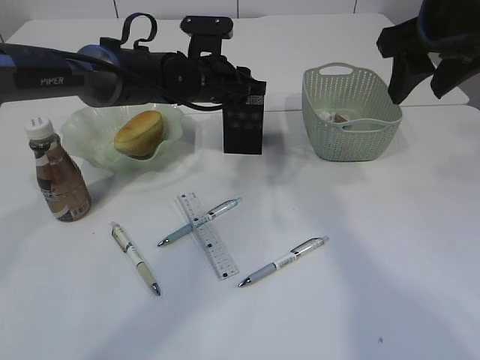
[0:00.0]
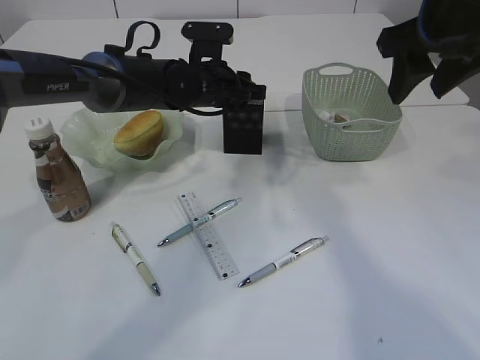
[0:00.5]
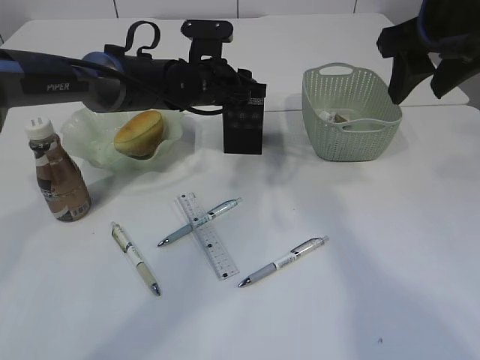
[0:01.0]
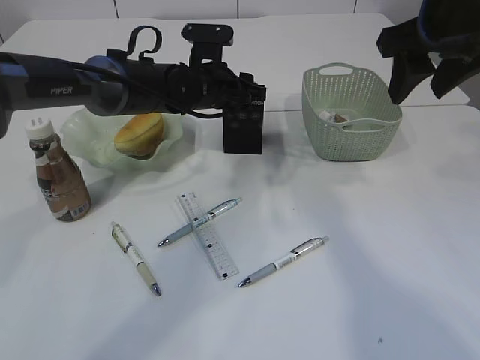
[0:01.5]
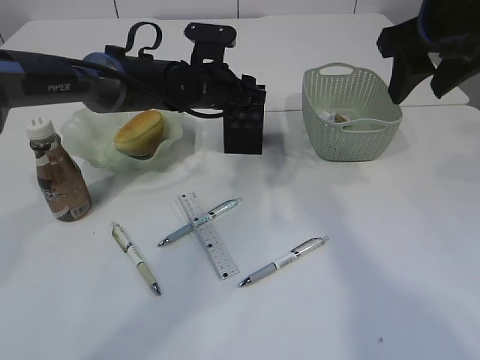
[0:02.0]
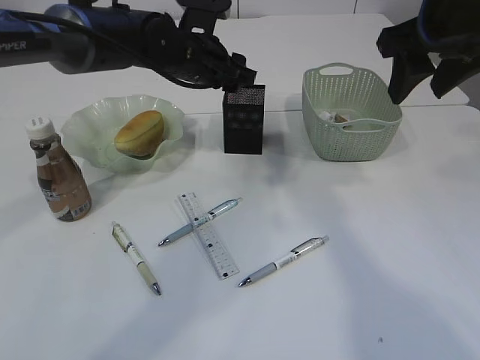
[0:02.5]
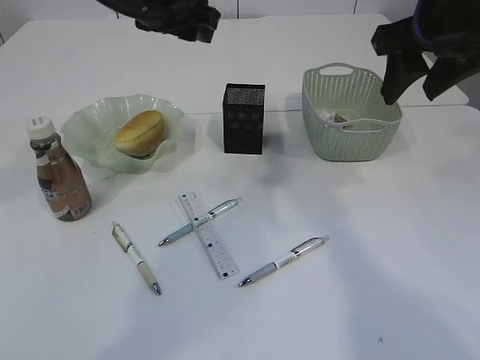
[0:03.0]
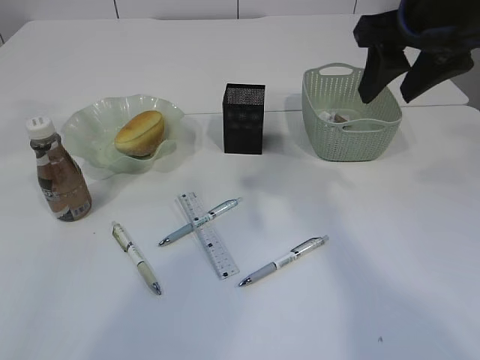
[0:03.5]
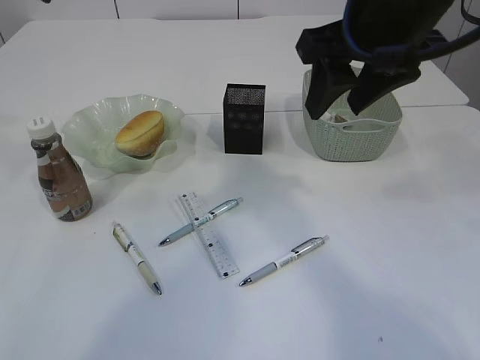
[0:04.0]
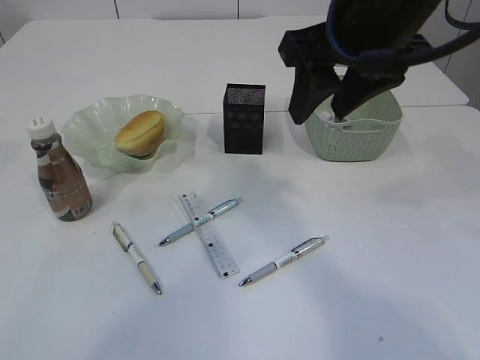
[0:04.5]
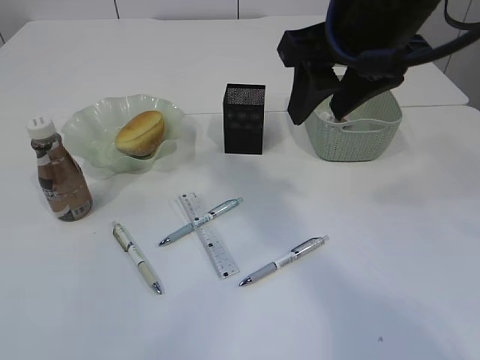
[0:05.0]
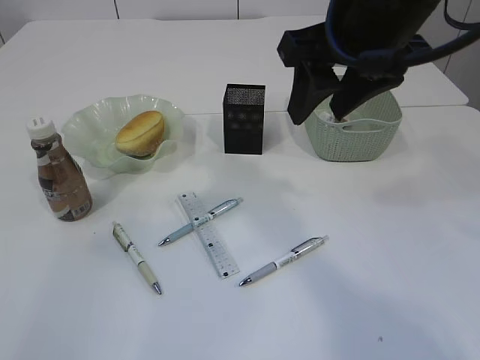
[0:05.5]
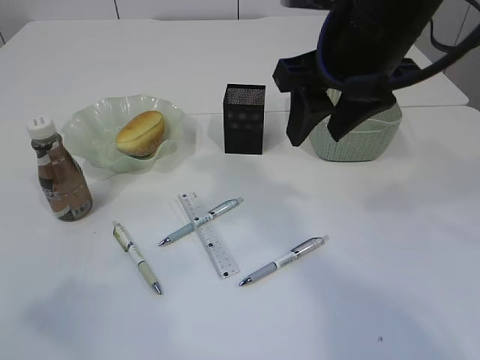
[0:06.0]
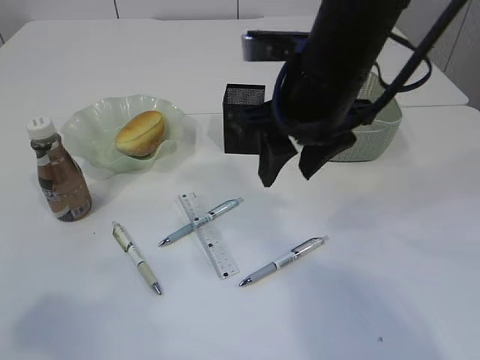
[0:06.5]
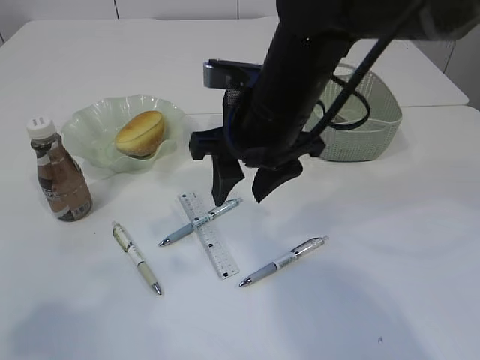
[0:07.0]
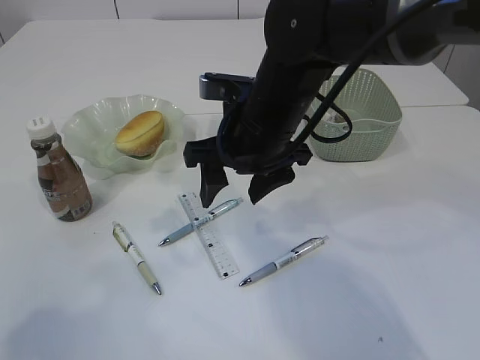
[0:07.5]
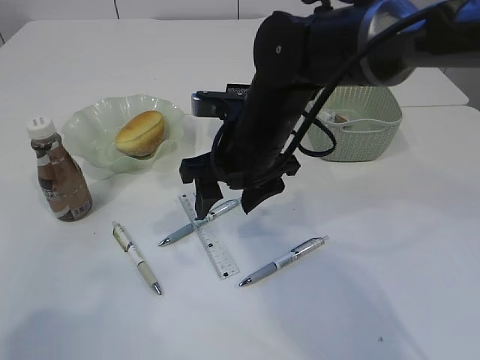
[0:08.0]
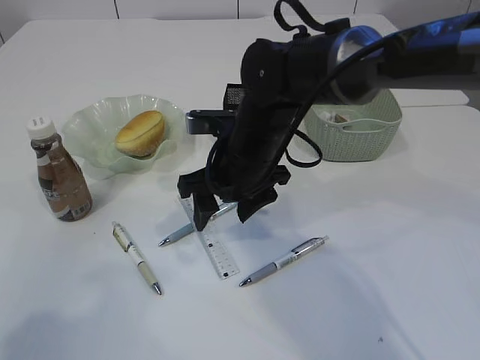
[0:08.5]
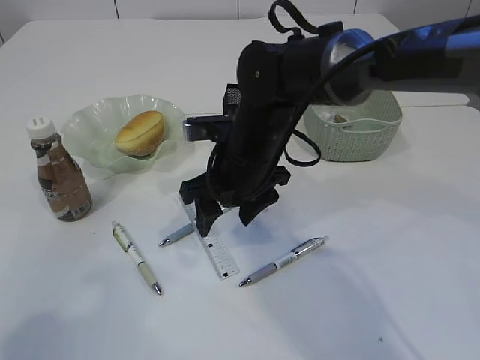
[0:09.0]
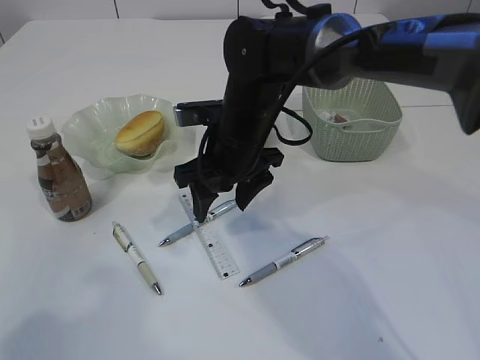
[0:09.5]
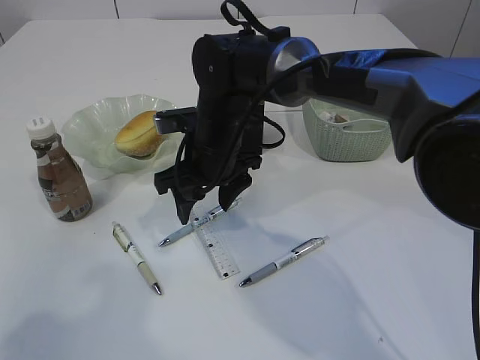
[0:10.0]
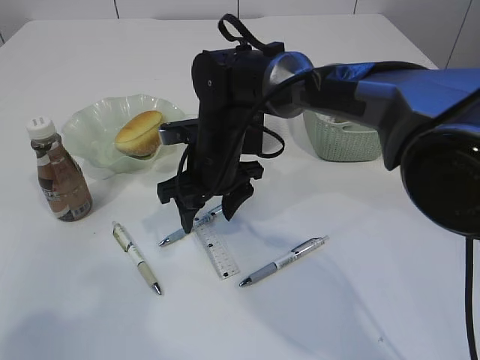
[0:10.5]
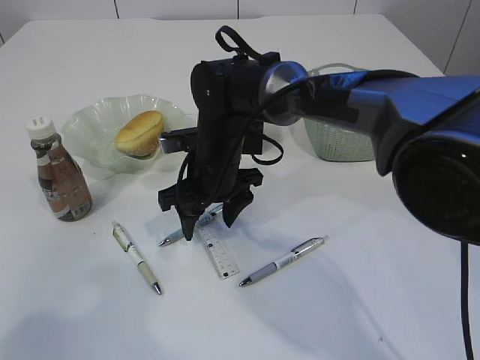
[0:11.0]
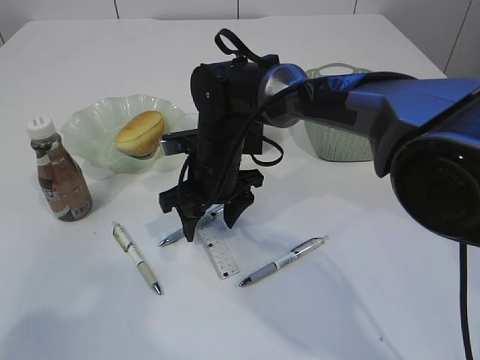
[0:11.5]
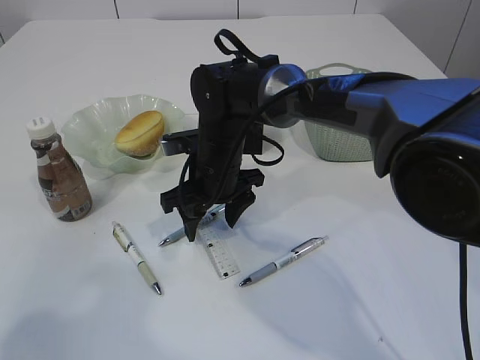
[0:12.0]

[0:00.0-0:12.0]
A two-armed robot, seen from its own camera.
Step, 0.0 to 2.5 s: Place the red pencil sharpener into the pen holder.
0.0 to 2.0 s: The two grippers keep their place.
2.0 to 4.0 s: The right gripper heads to the left, covering about 10 cm; the left gripper moves upward, to the left and backward, some 35 cm.
4.0 to 6.0 s: The left gripper moves backward, approximately 25 cm.
6.0 to 8.0 s: The left gripper opens its fingers; the right gripper is displaced downward and to the left by about 15 cm.
8.0 to 10.0 s: The right gripper moves some 5 cm.
10.0 to 12.0 s: The grippers move only a little.

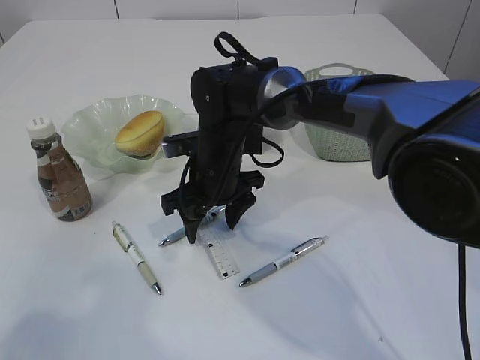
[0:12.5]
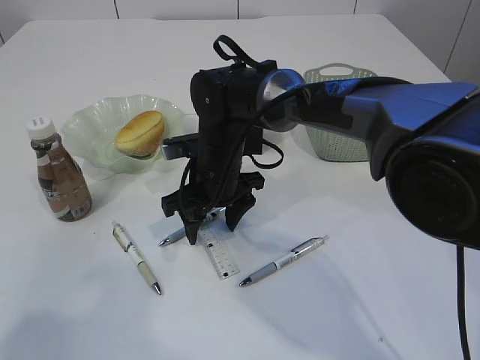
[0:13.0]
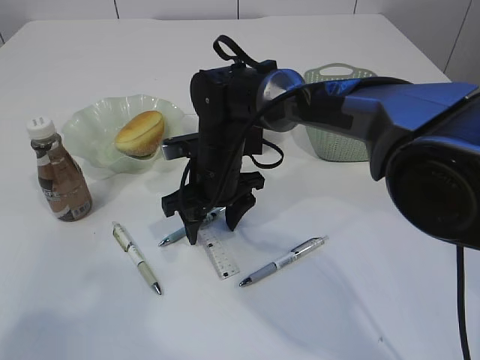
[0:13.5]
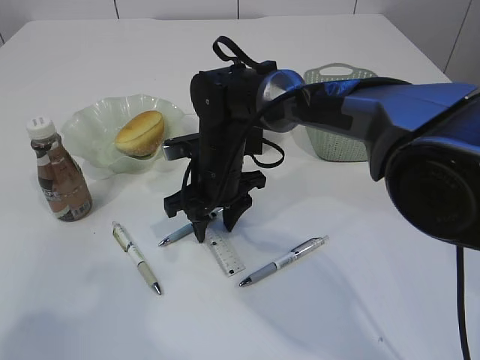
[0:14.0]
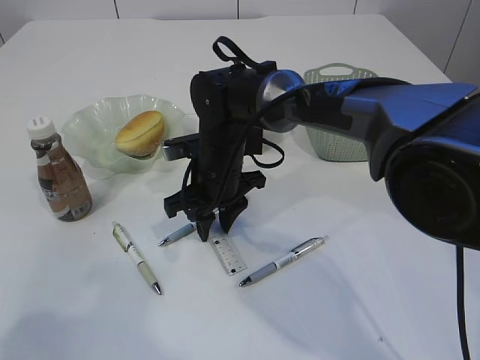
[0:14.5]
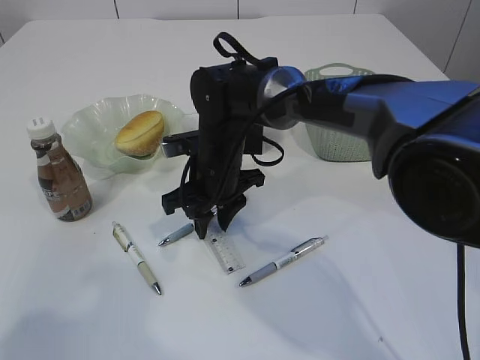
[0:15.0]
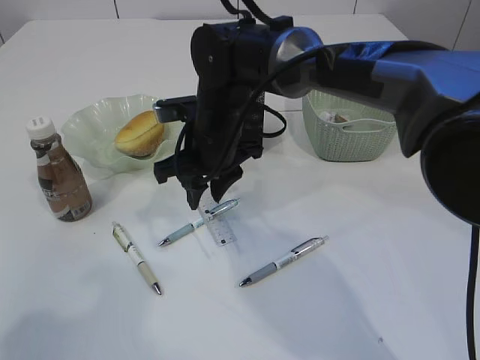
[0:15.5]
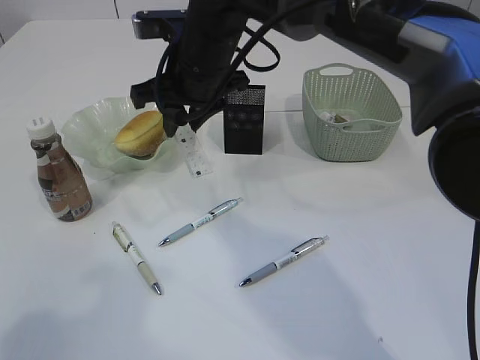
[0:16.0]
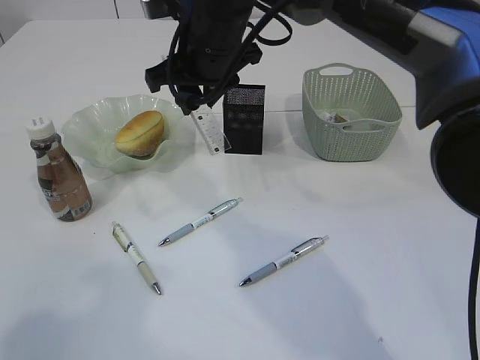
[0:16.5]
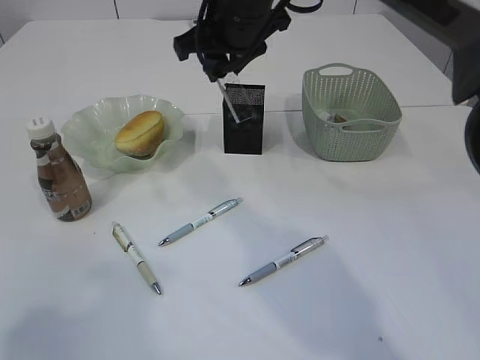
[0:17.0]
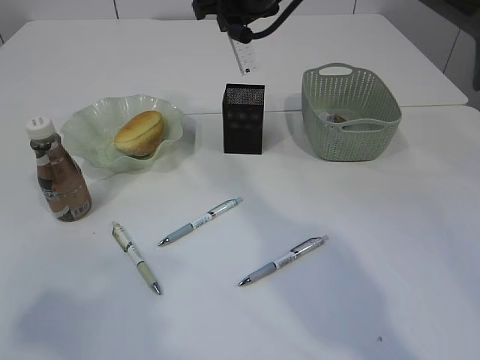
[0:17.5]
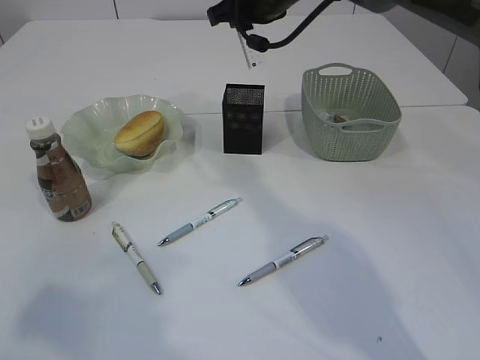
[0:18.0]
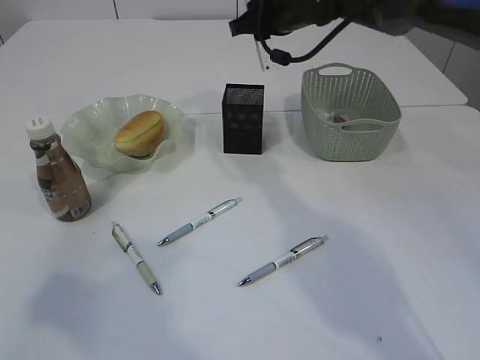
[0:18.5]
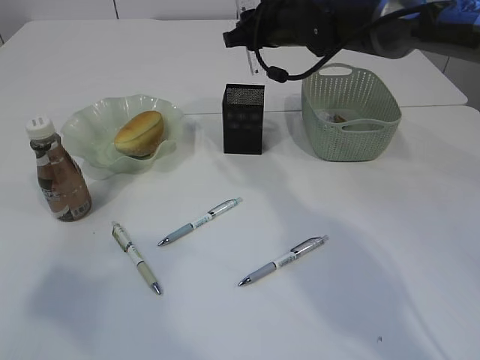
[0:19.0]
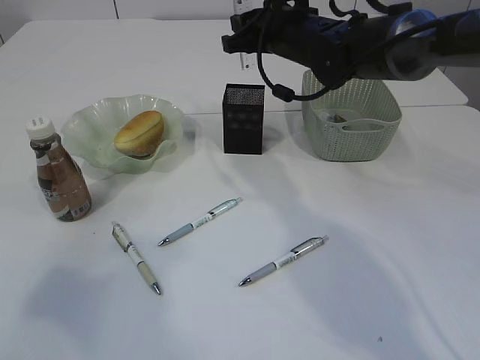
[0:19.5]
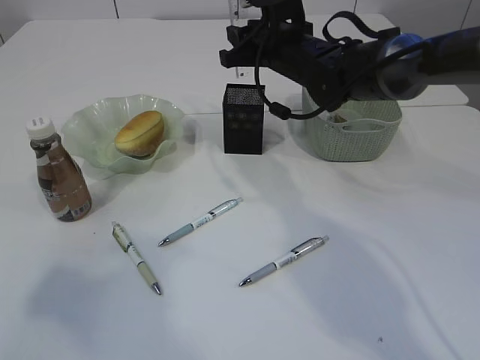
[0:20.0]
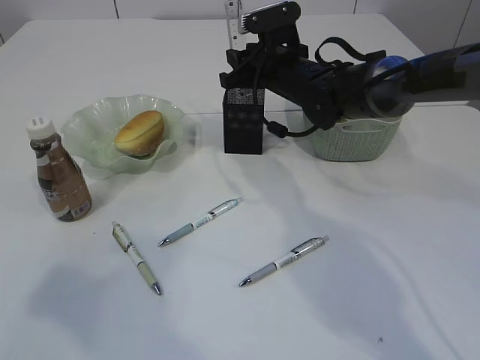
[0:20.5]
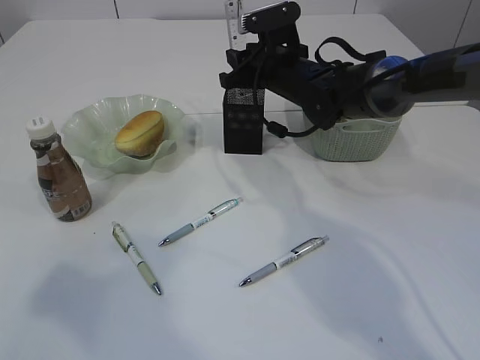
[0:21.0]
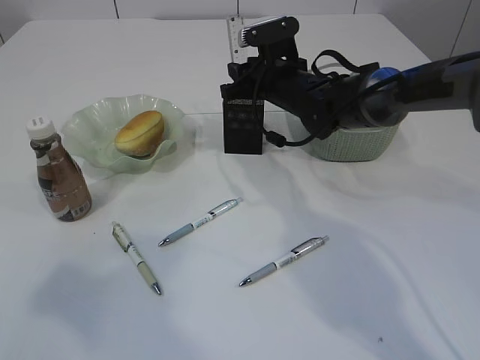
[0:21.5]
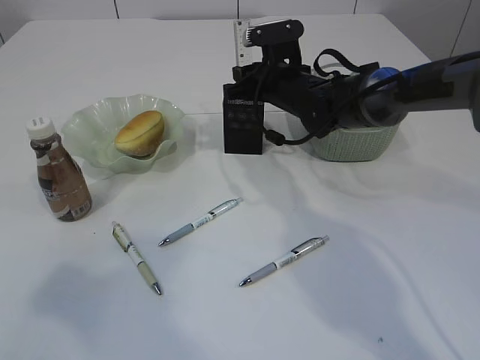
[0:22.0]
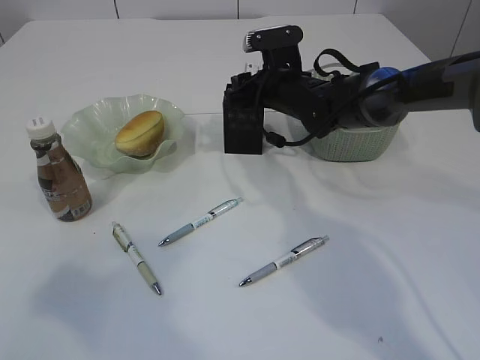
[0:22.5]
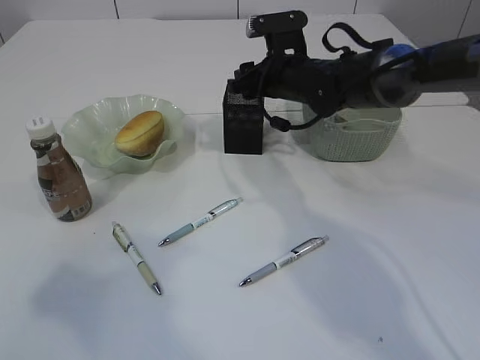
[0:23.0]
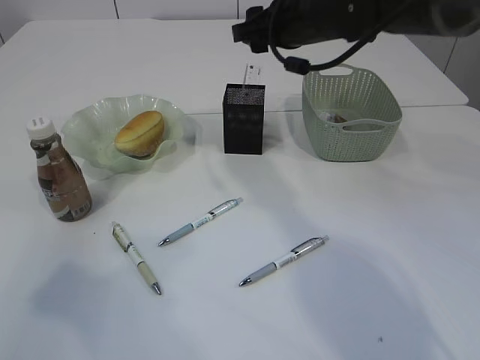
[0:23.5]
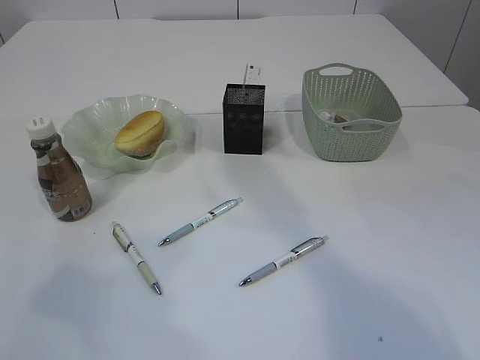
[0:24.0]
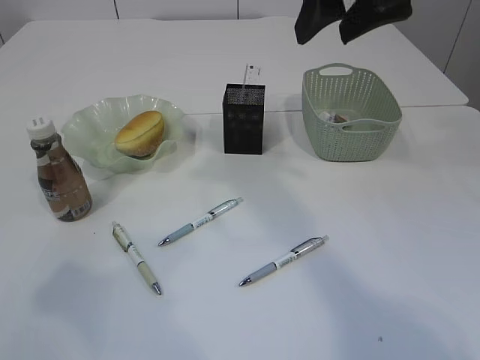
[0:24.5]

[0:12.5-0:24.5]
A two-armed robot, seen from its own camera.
Step, 12.5 to 15.5 s: pick up the ruler.
Step, 16.0 to 23.5 s: Place the ruler into the pen holder.
12.5 to 14.5 s: The right gripper closes its fingers.
14.5 to 16.5 s: The right gripper moves upward, some 15 cm.
16.5 to 18.5 s: The right gripper shifts roughly 15 cm to the right and forward.
18.5 to 20.5 s: The right gripper goes approximately 10 cm downward.
20.5 to 22.5 s: There are only small adjustments of the grippers.
22.5 to 24.5 s: The right gripper heads upward and backward, covering some 30 cm.

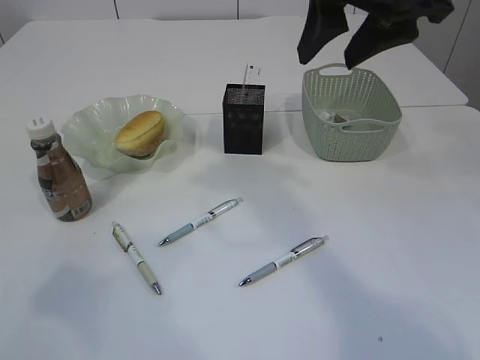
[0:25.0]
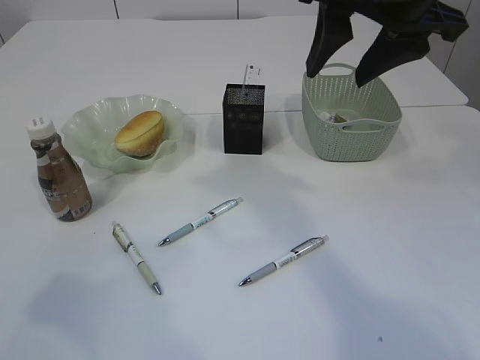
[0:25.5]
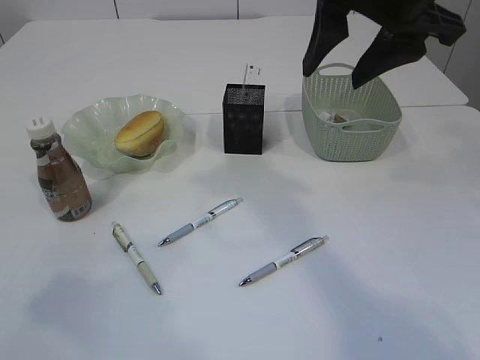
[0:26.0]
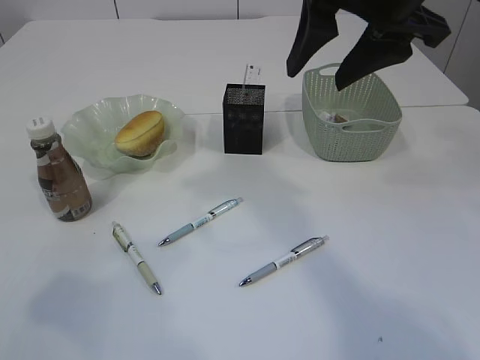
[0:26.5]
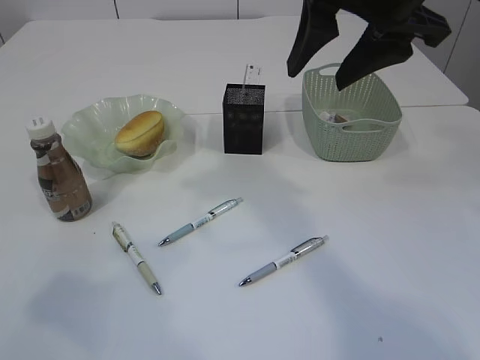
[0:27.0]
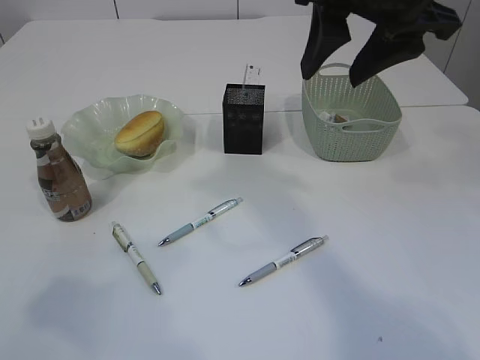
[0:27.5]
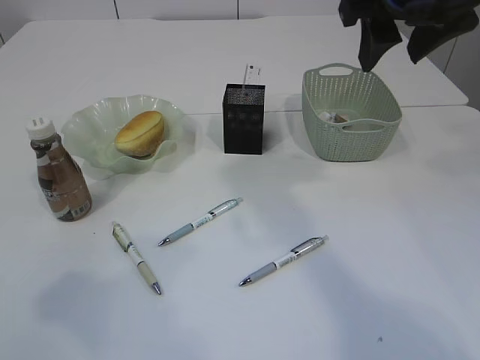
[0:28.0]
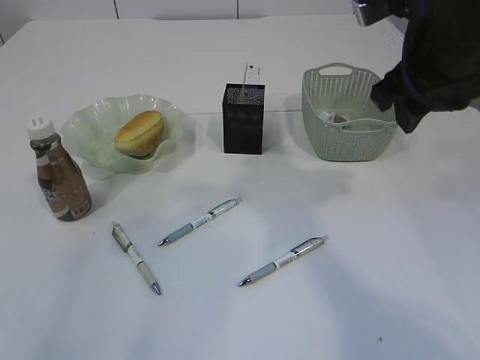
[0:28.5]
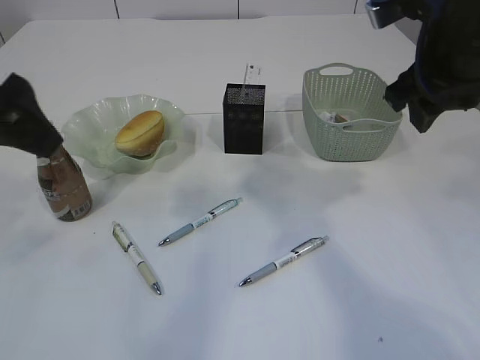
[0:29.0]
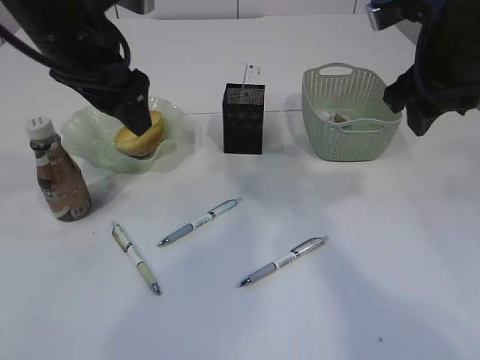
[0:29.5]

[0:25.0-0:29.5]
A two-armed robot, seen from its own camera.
25.0 to 27.0 s: The grippers move only a little.
27.0 to 29.5 s: The right gripper shifts approximately 10 cm to the right and downward; the left gripper travels forward and to the right by roughly 30 cm.
